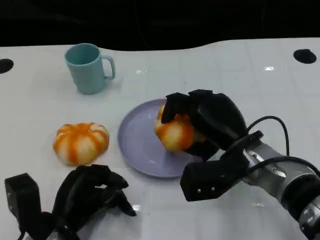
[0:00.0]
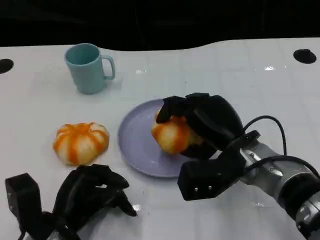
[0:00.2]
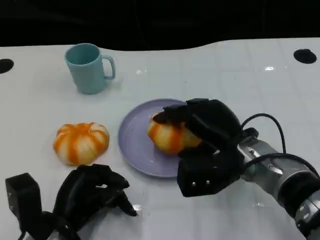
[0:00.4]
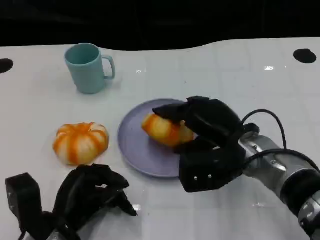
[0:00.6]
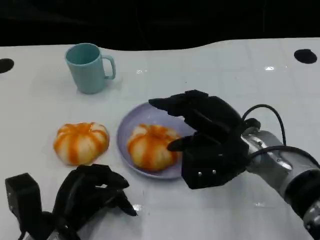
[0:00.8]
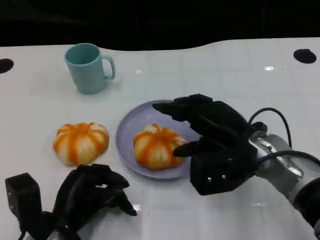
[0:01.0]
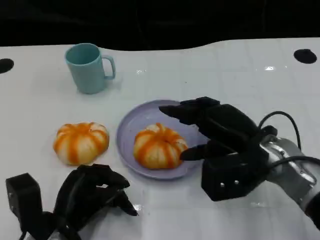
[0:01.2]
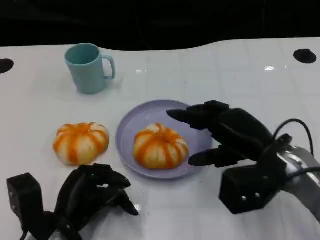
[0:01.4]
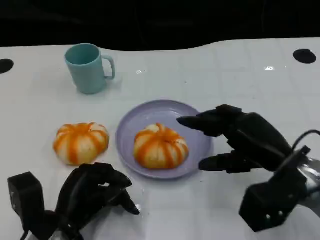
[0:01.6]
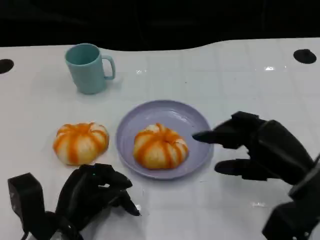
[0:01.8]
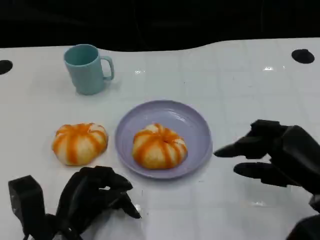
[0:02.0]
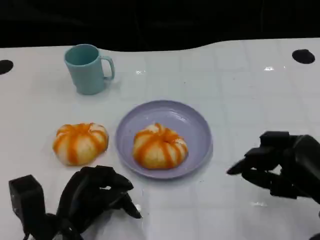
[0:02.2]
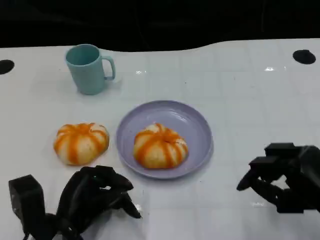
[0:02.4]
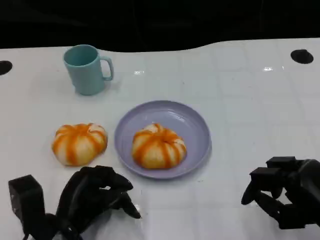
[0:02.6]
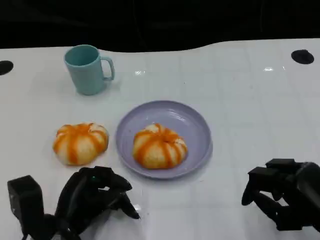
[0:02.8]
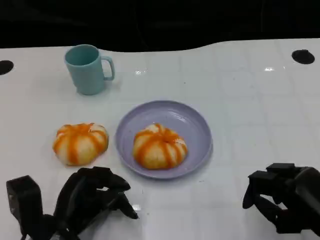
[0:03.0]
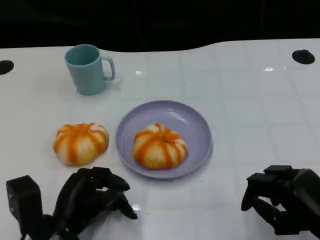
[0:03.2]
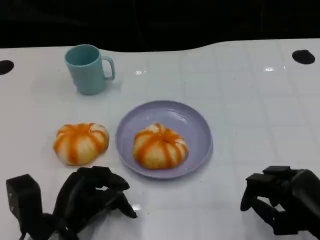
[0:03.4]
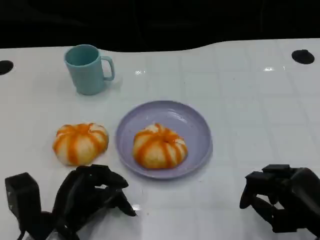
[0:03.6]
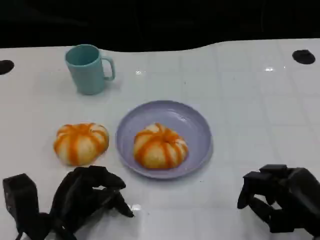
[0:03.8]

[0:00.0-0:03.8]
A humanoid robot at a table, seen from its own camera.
Task of the whole recording: Grasp the bread from the table and place it into the plate.
0:00.0 to 0:01.2: The hands stay close to where they were, moving slightly.
0:01.2 to 0:02.6: The right hand goes roughly 15 cm backward and to the right.
0:02.6 to 0:03.8: The hands stay close to where they were, moving slightly.

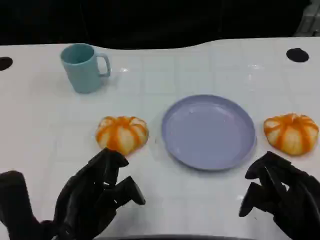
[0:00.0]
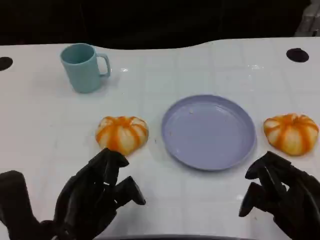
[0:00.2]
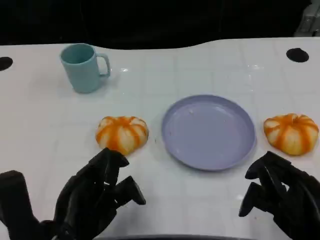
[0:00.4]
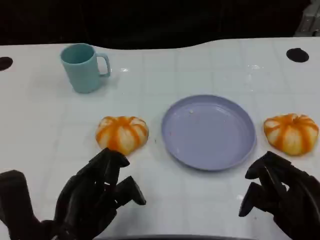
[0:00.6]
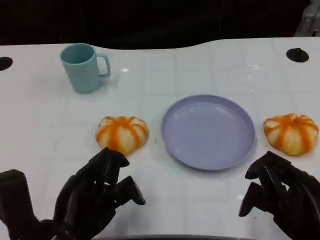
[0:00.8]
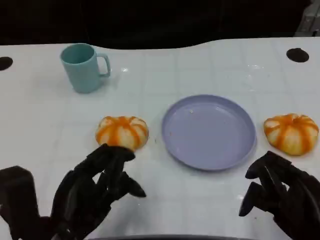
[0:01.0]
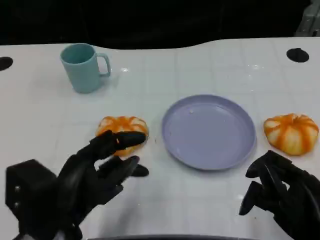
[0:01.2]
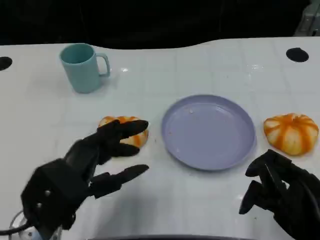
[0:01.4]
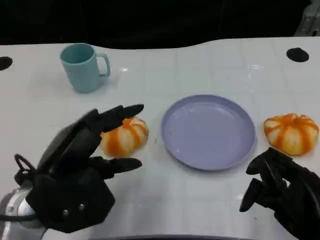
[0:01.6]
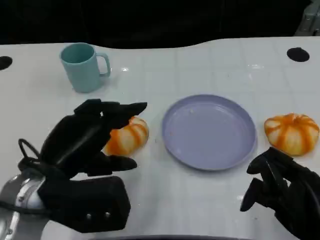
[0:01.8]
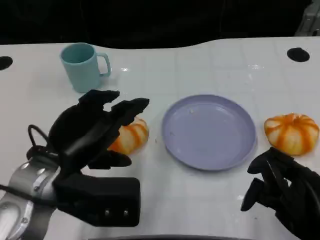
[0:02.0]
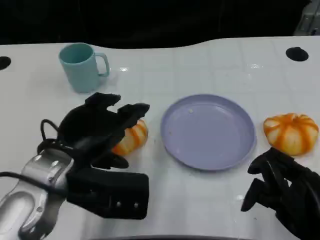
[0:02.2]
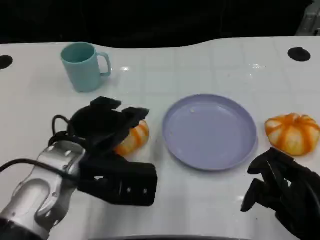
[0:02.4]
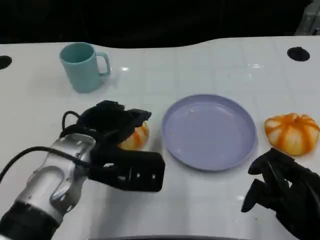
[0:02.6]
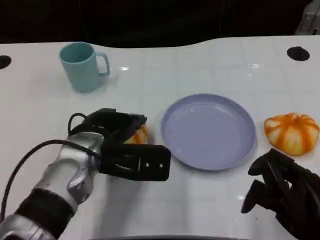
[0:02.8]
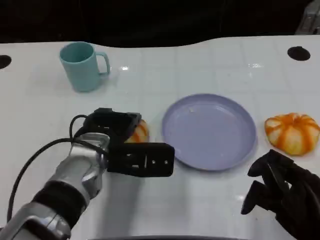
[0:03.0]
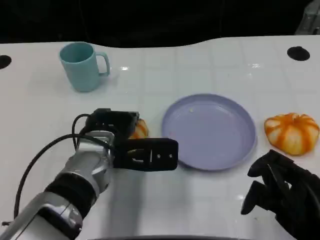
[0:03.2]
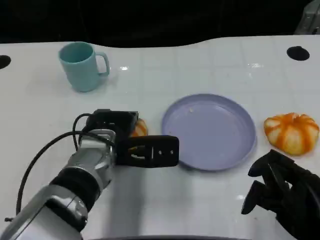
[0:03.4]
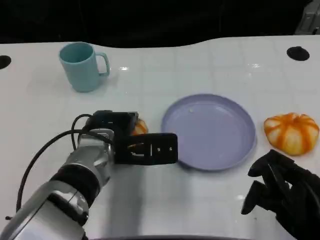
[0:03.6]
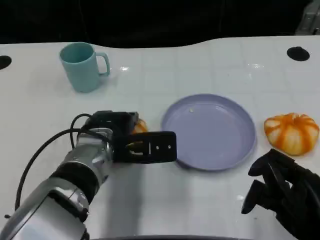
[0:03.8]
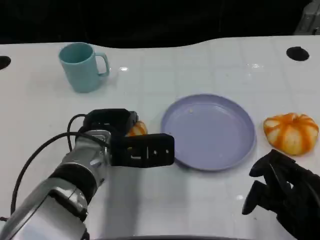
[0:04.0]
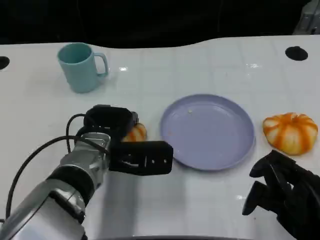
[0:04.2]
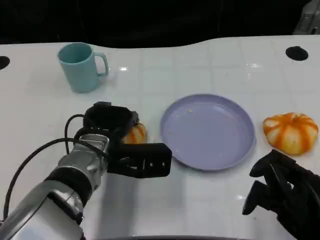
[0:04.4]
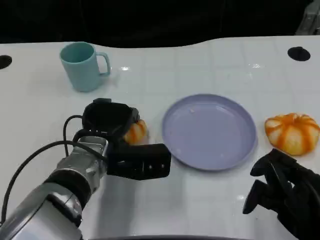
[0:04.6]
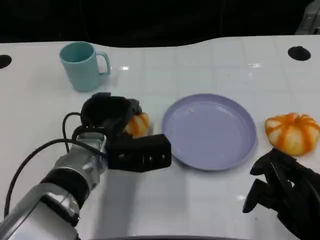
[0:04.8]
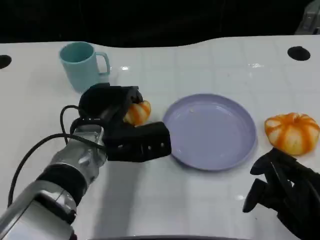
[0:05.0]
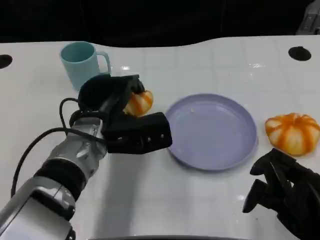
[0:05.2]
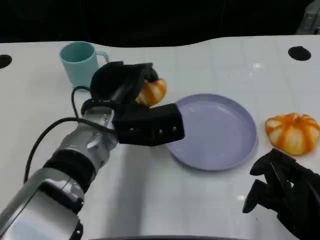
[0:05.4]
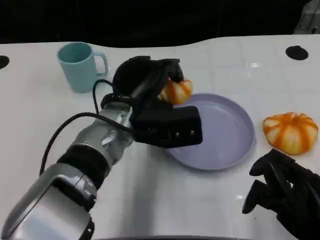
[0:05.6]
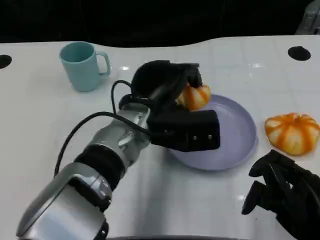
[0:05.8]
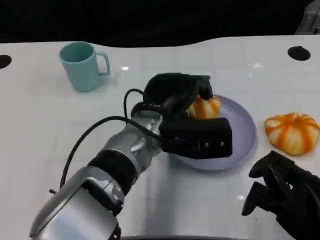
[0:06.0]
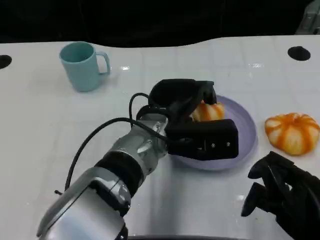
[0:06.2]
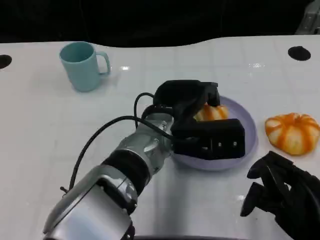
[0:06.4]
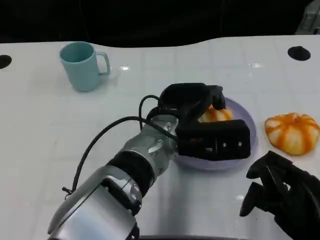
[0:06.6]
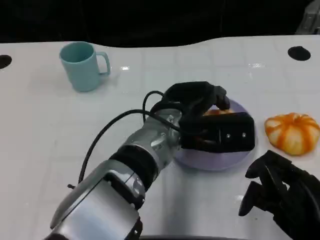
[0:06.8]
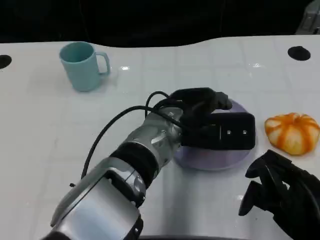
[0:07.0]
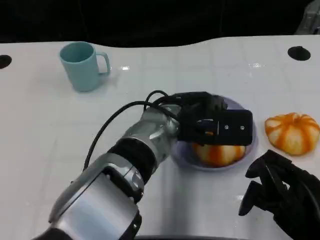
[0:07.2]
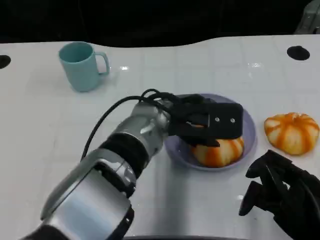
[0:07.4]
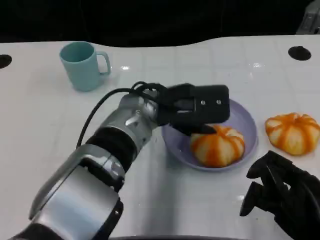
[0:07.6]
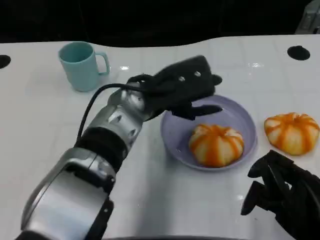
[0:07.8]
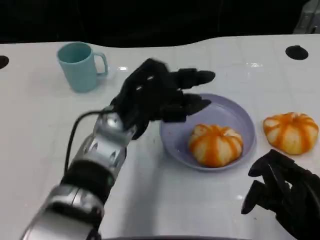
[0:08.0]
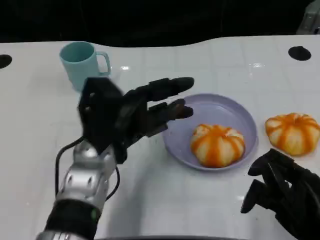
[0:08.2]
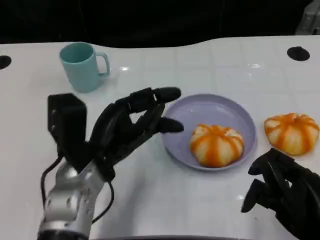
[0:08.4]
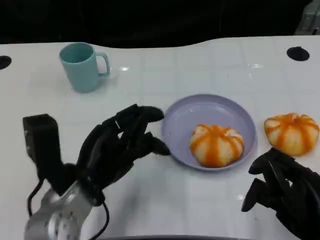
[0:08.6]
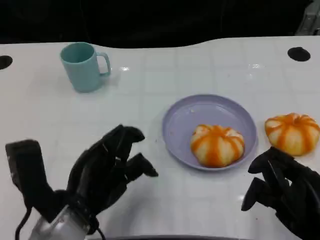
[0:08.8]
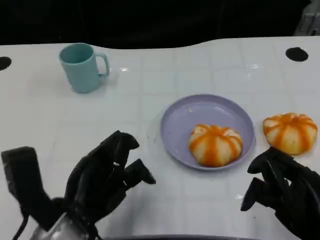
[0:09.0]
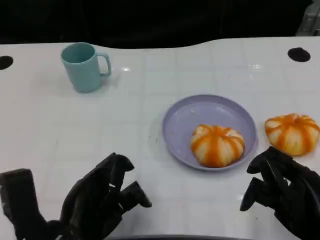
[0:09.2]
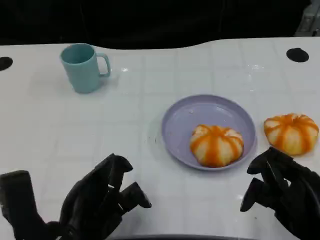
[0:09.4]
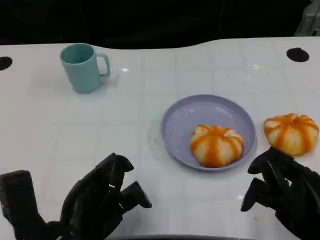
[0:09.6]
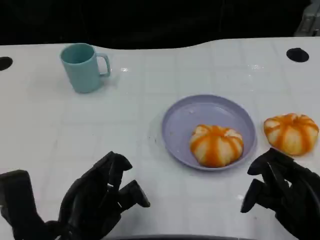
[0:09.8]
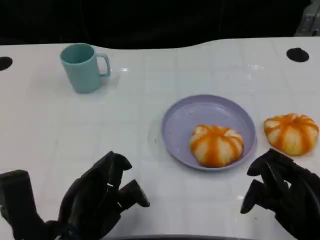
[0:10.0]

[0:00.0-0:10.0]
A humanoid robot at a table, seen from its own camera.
Task of the whole recording: Grasp the bread from the table and place it into the plate.
0:01.4 to 0:02.8: The left hand is displaced forward and to the right by some 10 cm.
0:02.8 to 0:04.2: The hands make only small movements.
0:04.2 to 0:05.8: The left hand goes some 10 cm to the right and upward.
0:07.2 to 0:08.6: The left hand travels to the left and backward by about 15 cm.
0:08.6 to 0:10.0: The left hand travels backward by some 5 cm.

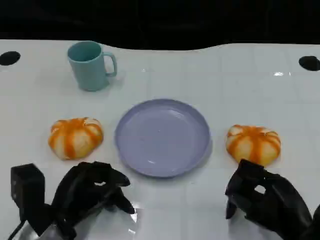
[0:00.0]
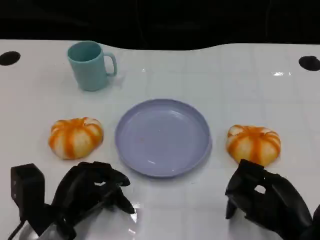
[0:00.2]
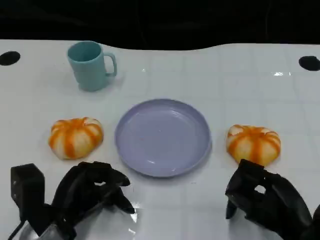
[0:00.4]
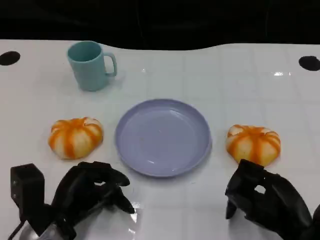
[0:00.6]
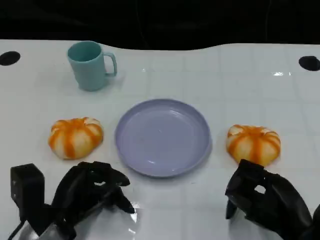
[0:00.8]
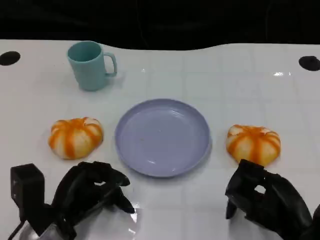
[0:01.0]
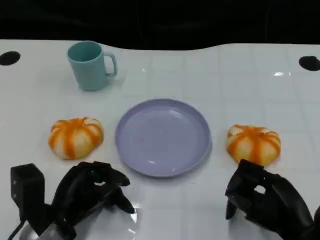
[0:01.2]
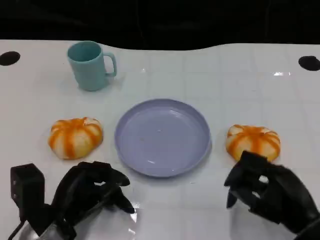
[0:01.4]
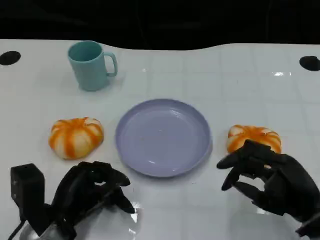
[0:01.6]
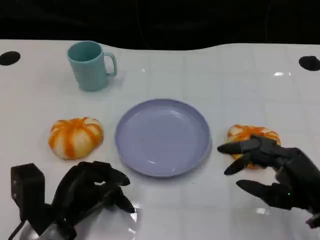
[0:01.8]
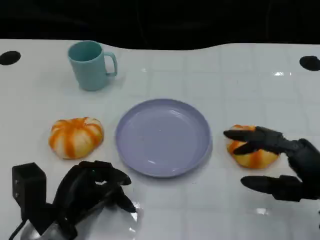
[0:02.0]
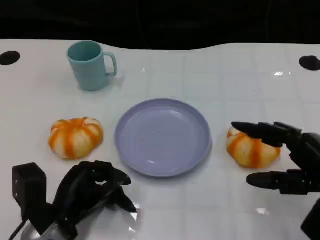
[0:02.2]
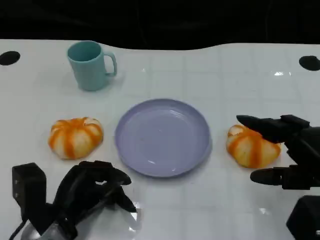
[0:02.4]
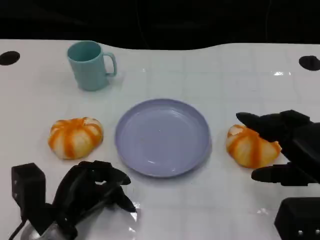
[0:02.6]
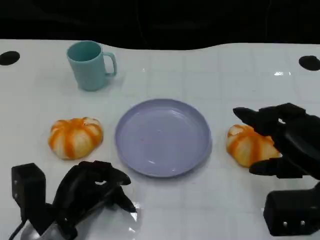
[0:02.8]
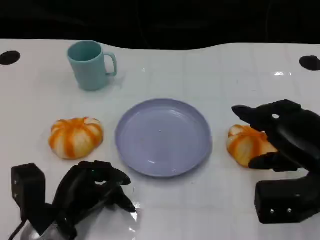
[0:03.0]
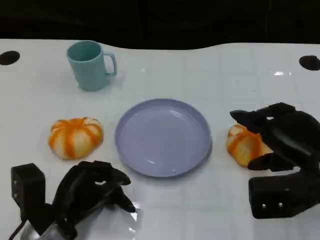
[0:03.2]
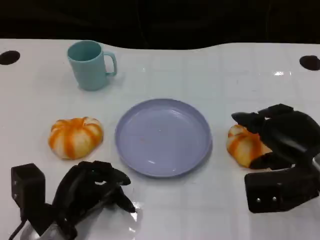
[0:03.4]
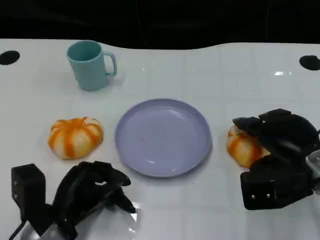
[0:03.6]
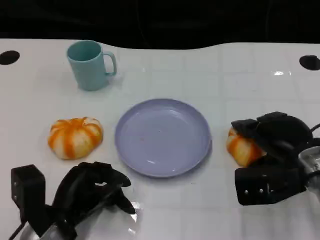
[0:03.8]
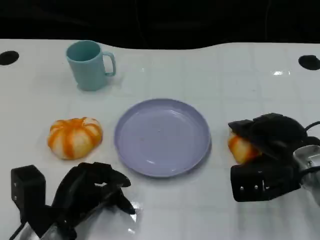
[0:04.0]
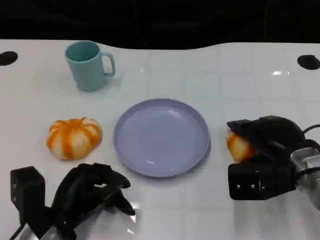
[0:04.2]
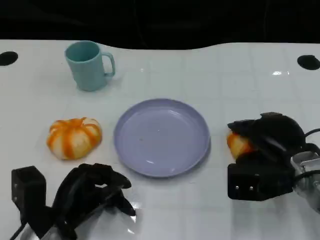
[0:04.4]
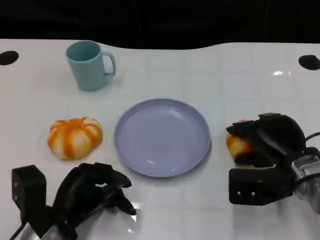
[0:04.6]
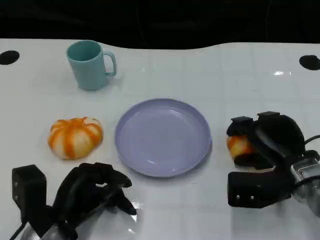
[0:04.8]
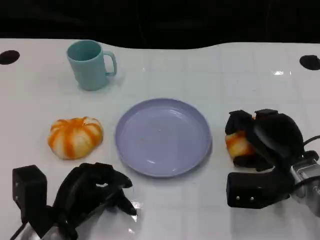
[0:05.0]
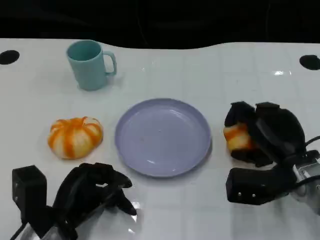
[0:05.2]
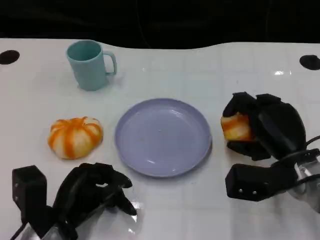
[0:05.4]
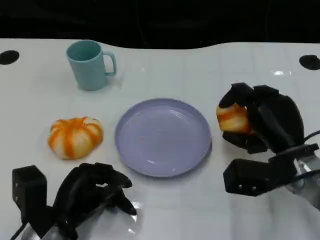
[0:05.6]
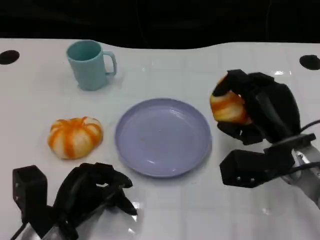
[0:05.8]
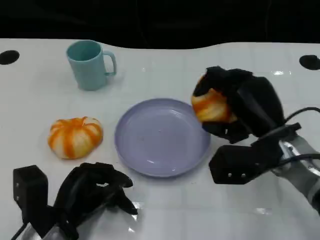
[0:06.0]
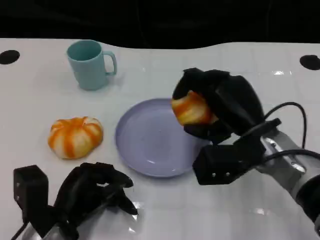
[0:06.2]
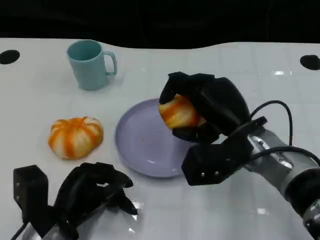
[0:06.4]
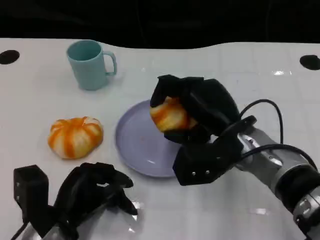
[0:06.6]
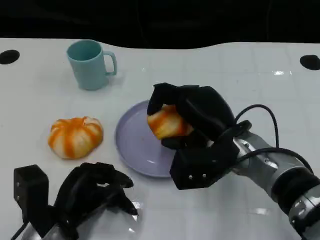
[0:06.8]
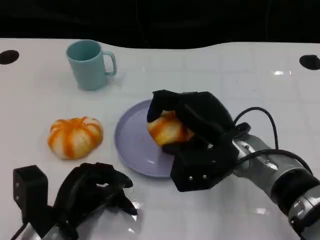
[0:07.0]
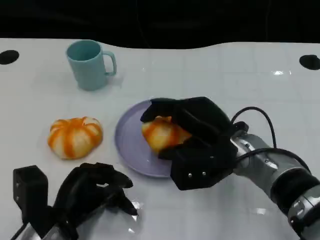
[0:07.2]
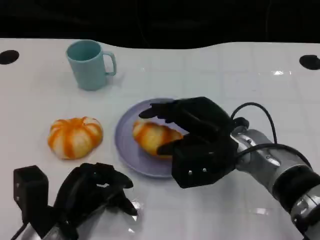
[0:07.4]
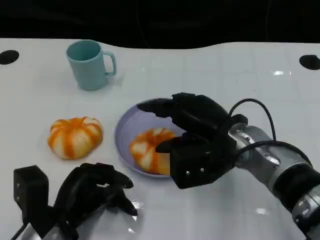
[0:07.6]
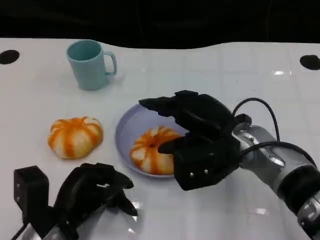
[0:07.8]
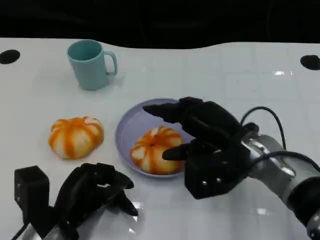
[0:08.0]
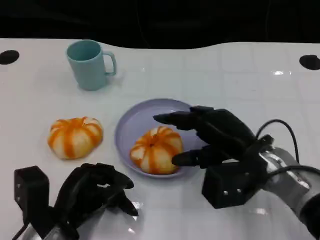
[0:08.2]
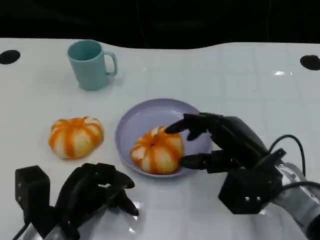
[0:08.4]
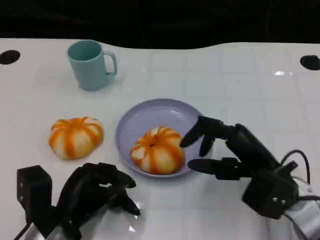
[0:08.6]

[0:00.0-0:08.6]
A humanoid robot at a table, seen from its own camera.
Task of the whole recording: Grasp the bread from the table and place it into the plate.
0:00.0 to 0:01.4: The hands make only small movements.
0:01.4 to 0:02.8: The right hand heads upward, covering approximately 5 cm.
0:02.8 to 0:04.4: The right hand is displaced downward and forward by approximately 10 cm.
0:05.8 to 0:07.2: The right hand shifts approximately 5 cm to the left.
0:07.2 to 0:08.6: The right hand goes some 5 cm to the right.
